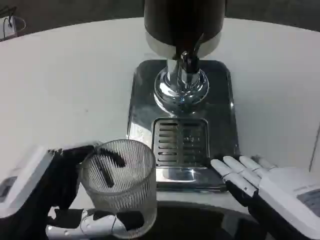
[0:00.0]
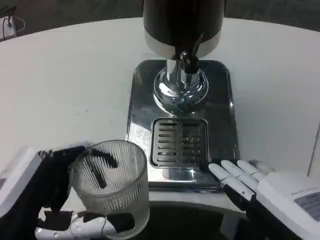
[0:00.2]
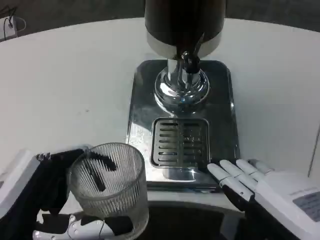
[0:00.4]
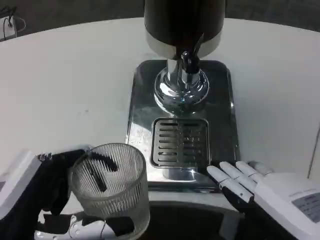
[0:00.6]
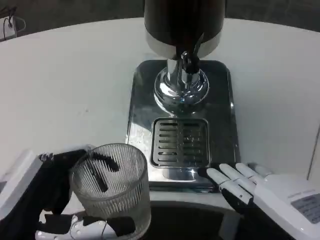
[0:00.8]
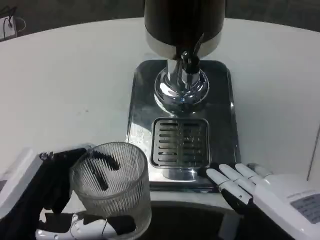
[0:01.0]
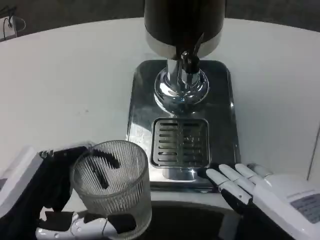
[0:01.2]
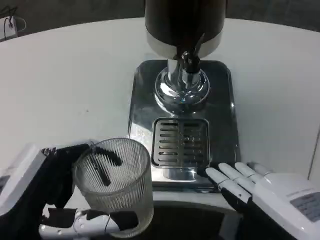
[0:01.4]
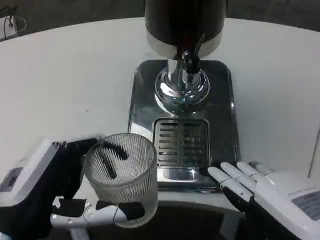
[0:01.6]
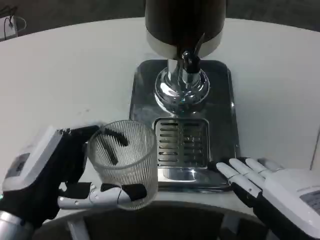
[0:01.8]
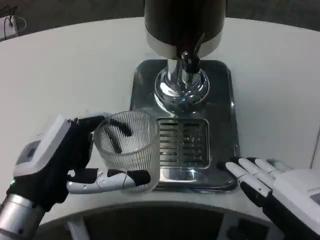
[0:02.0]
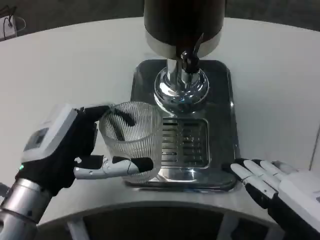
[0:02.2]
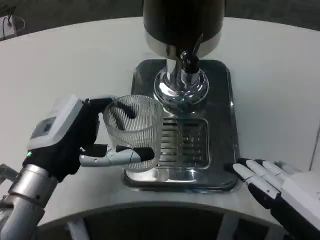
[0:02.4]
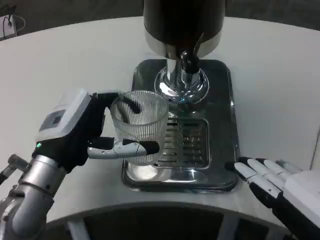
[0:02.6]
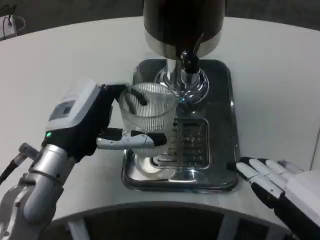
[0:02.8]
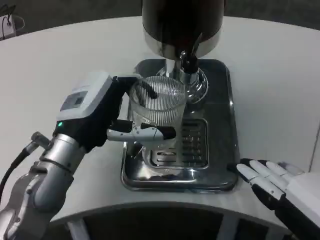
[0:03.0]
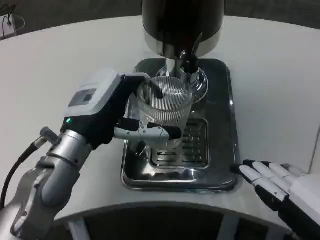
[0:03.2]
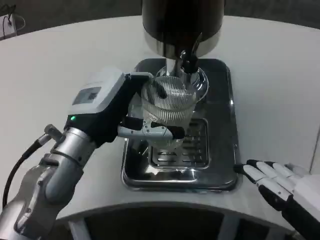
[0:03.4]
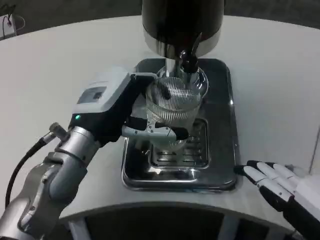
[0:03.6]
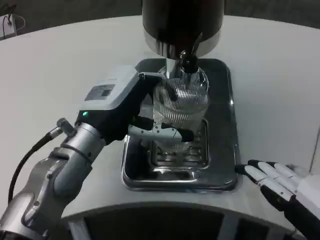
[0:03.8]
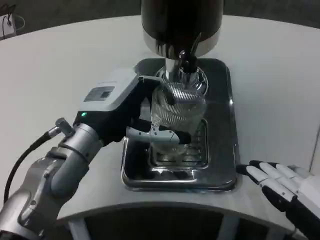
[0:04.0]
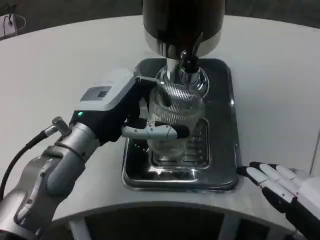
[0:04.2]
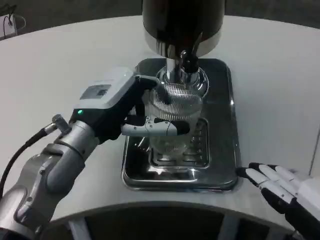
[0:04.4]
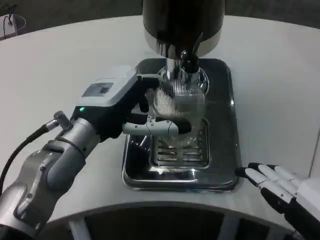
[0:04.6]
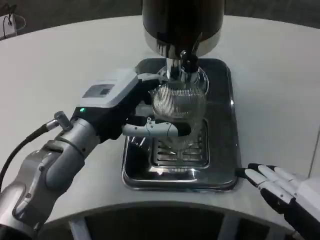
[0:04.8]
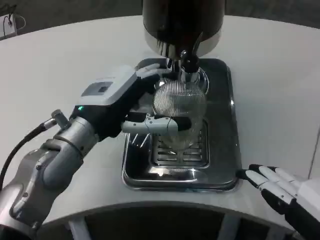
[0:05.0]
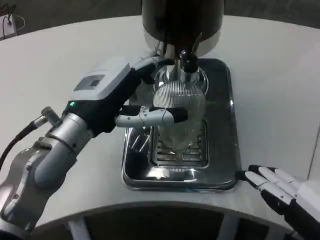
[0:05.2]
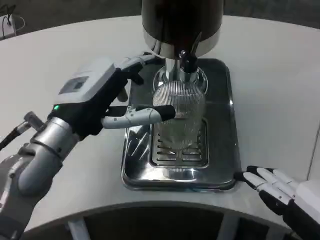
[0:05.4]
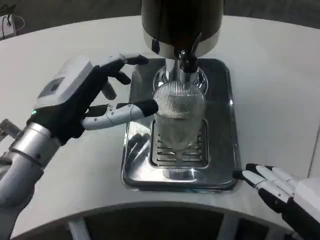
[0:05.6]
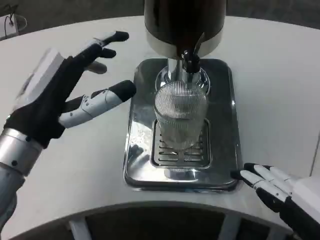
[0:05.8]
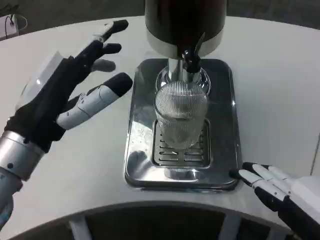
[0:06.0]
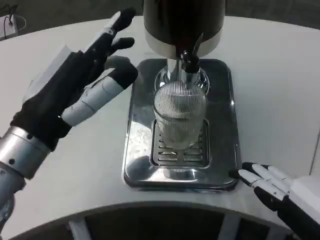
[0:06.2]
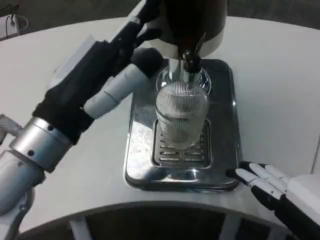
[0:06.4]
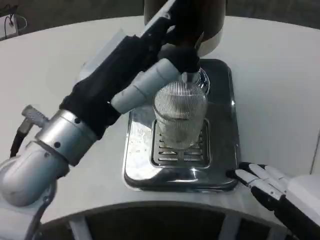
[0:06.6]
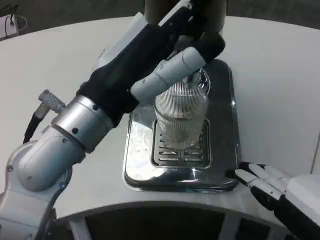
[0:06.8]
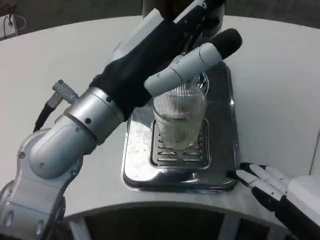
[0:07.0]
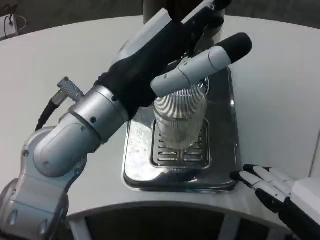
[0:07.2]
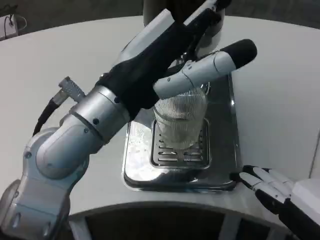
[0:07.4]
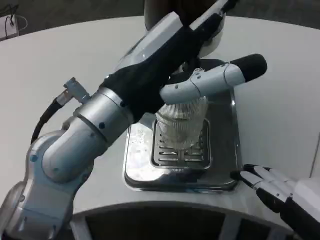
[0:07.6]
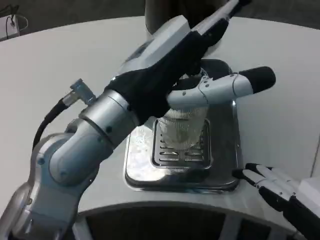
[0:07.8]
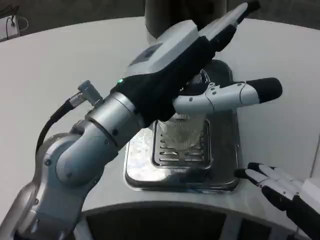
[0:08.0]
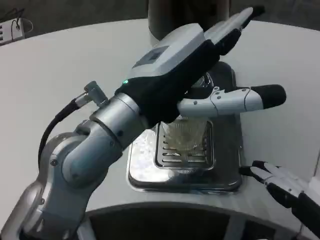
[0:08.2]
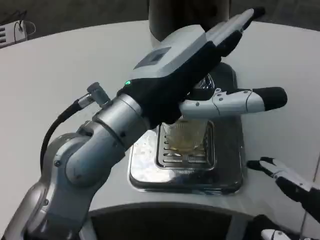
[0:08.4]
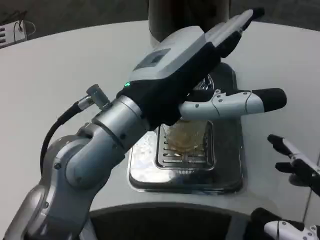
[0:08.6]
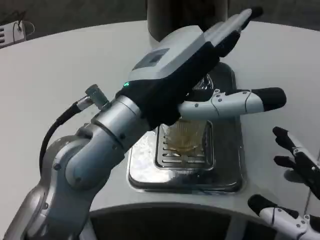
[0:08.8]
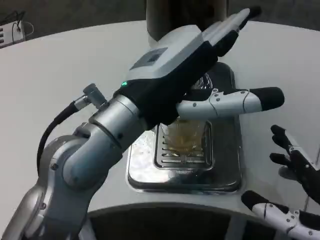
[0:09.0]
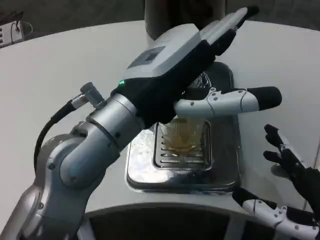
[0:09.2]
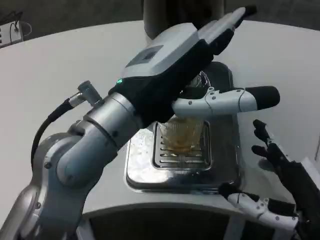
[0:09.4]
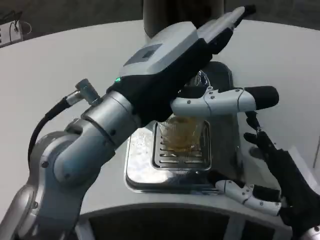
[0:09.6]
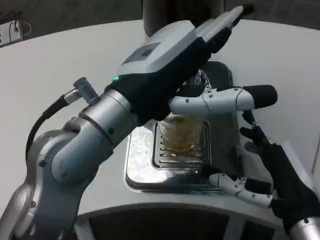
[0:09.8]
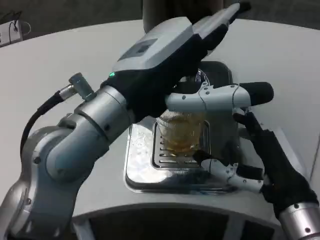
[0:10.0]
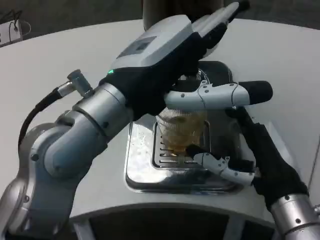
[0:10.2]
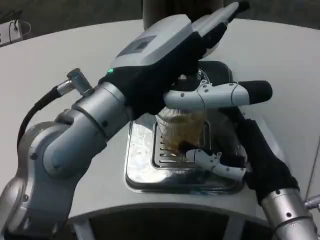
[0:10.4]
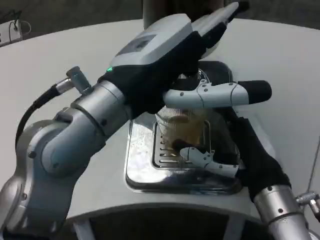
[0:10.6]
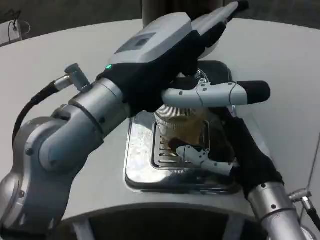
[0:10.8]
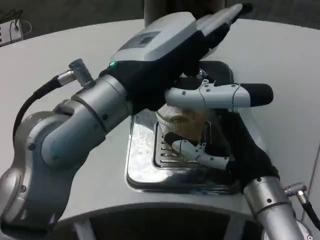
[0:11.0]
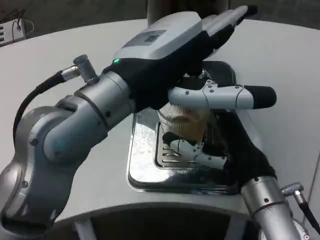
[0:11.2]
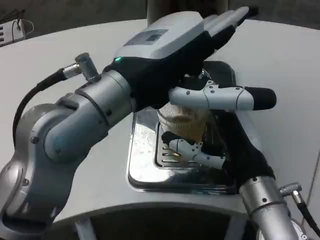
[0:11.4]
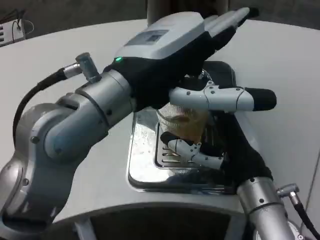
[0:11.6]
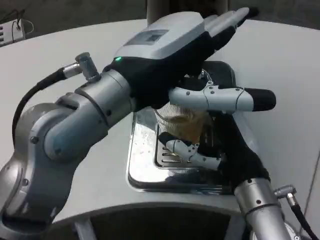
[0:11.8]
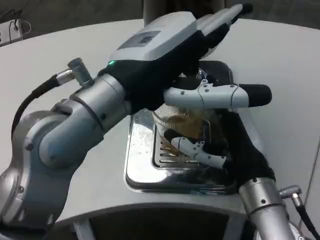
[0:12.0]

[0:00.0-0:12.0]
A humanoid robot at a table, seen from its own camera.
Task of the whole recording: Grasp the cup under the faucet to collect the drink, then remove the cup.
0:00.0 to 0:01.6: The hands stay close to where they were, moving slightly.
0:01.6 to 0:03.0: The left hand shifts approximately 15 cm forward.
0:03.0 to 0:04.4: There are only small adjustments of the hands.
0:04.4 to 0:06.0: The left hand moves backward, some 5 cm.
0:06.0 to 0:07.6: The left hand heads to the right and upward, covering some 10 cm.
0:07.6 to 0:09.0: The right hand ends up some 5 cm from where it was.
0:09.0 to 0:10.4: The right hand moves forward and to the left, some 10 cm.

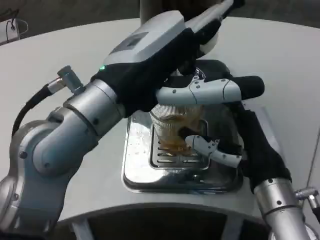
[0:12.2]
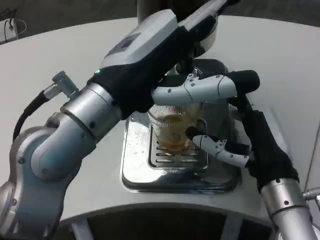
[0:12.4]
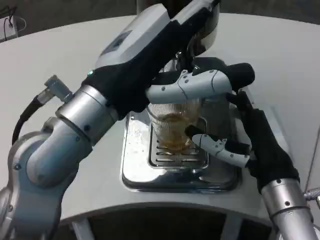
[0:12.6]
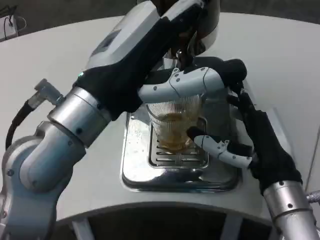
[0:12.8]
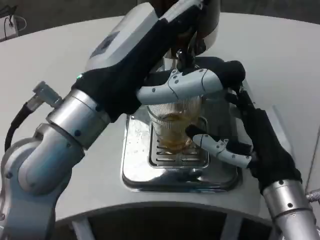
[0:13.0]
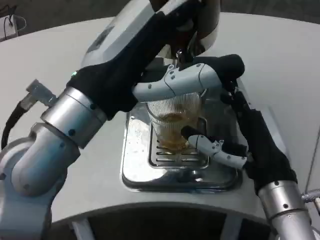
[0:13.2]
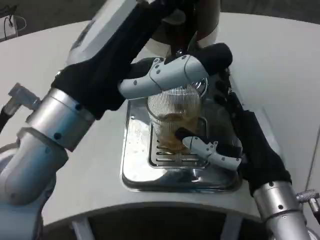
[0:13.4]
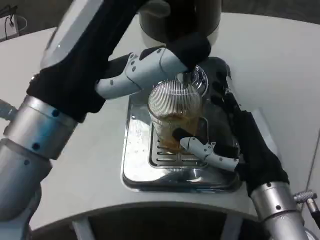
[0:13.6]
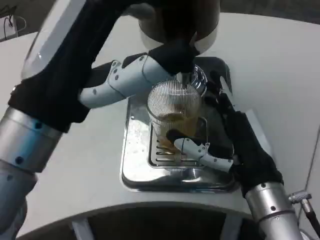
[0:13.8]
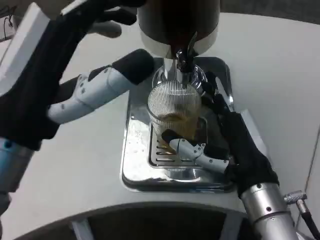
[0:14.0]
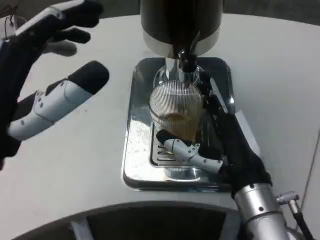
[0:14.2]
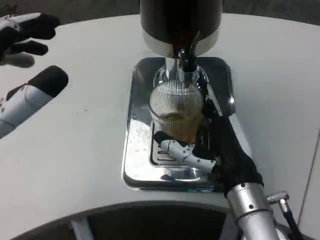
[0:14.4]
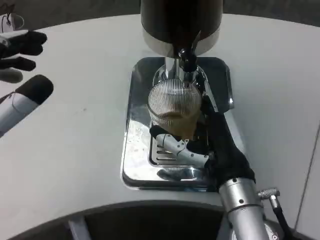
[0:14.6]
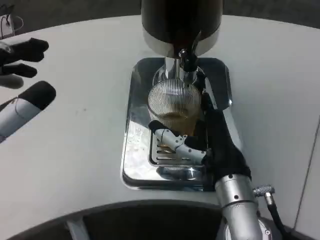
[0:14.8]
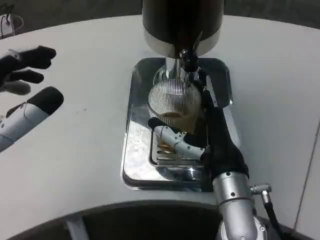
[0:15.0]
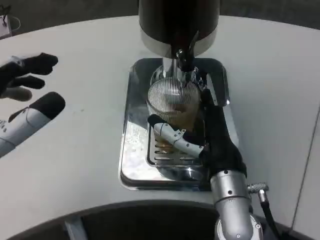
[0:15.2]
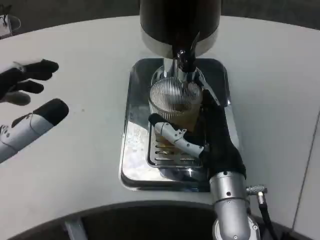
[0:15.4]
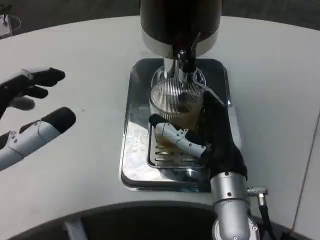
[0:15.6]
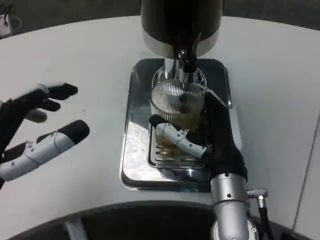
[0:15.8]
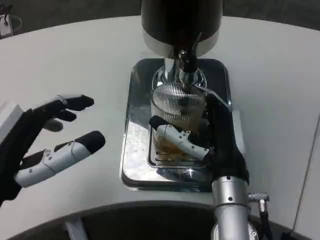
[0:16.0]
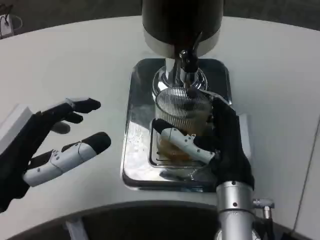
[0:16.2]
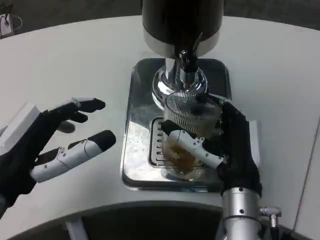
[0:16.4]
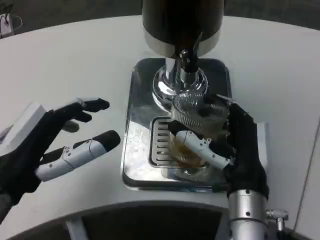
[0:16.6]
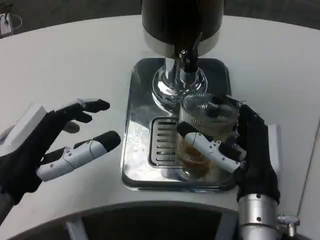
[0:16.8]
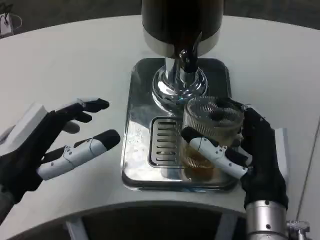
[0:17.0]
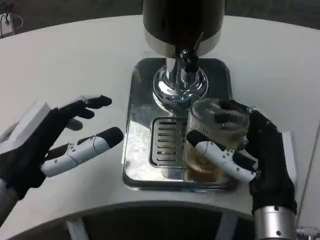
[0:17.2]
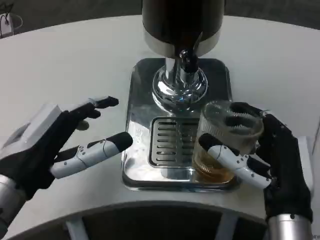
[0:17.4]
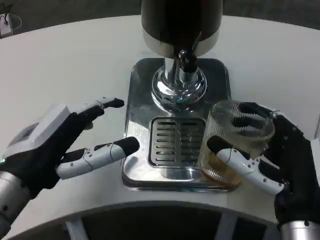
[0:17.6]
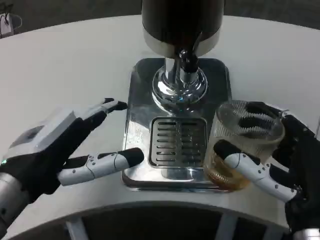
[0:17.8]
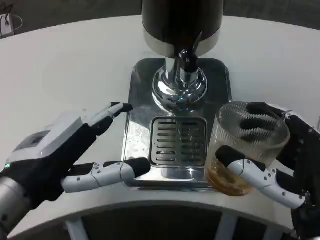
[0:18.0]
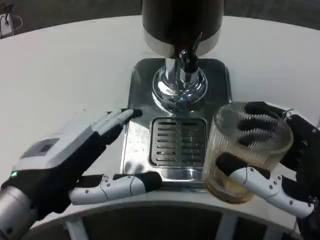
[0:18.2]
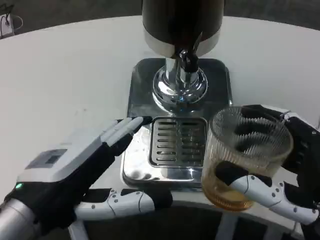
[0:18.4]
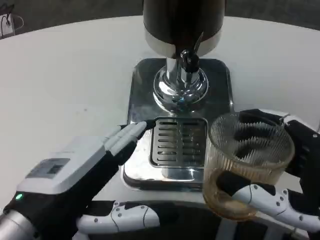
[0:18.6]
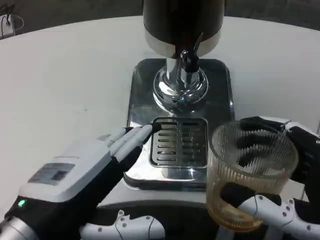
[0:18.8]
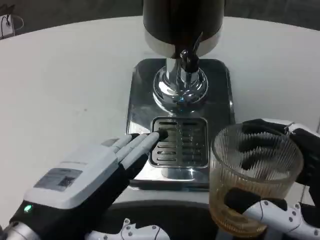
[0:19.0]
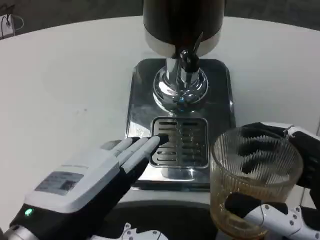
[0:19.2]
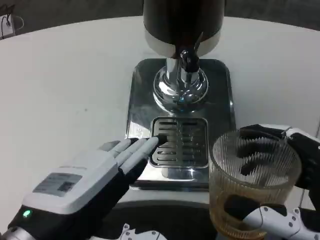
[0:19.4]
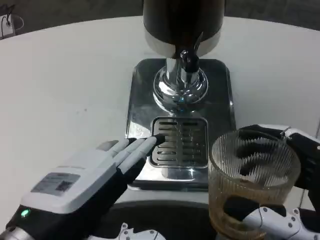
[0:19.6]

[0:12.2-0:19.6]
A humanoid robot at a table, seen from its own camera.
Task of the whole recording: Grasp the cup under the faucet to collect the drink, then remove the cup.
0:13.6 to 0:15.2: The right hand shifts approximately 5 cm to the left. Meanwhile the left hand heads to the left and downward, covering about 10 cm.
0:15.2 to 0:16.6: The left hand moves about 5 cm.
0:16.6 to 0:18.2: The right hand heads backward and to the right, covering approximately 15 cm.

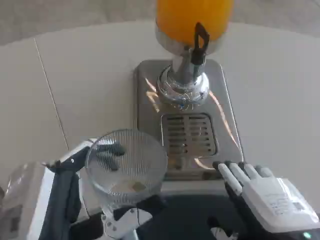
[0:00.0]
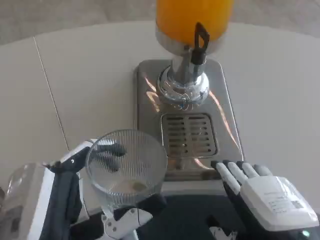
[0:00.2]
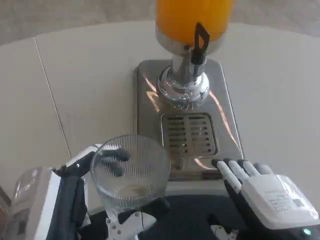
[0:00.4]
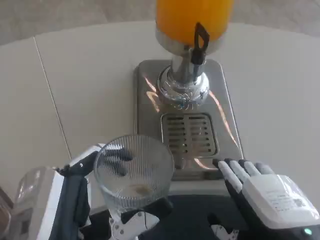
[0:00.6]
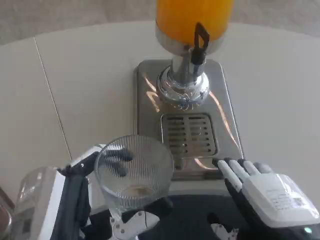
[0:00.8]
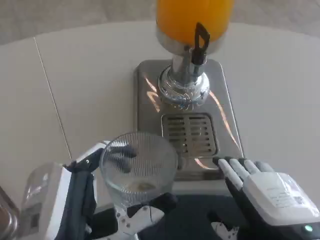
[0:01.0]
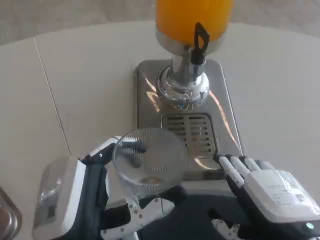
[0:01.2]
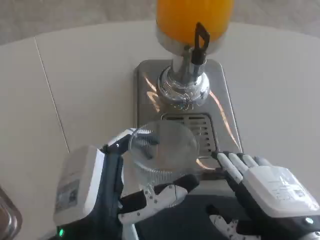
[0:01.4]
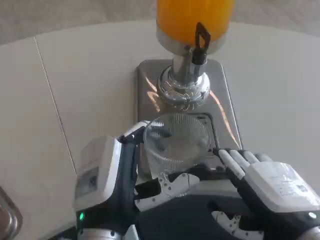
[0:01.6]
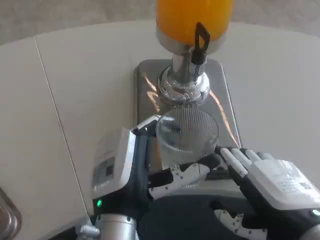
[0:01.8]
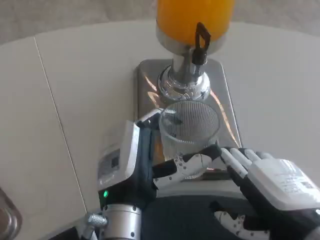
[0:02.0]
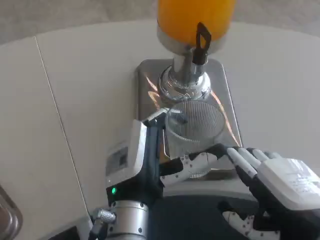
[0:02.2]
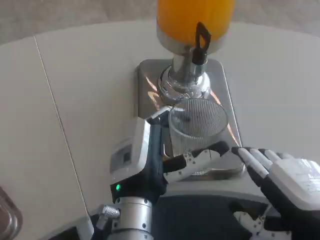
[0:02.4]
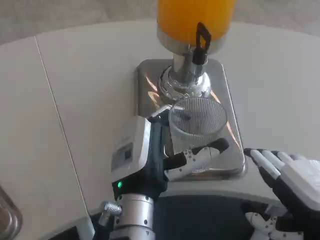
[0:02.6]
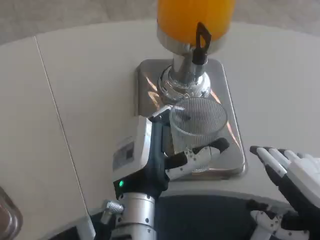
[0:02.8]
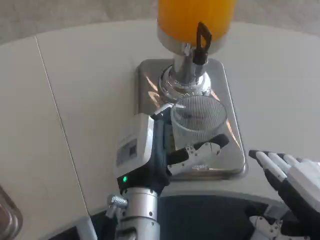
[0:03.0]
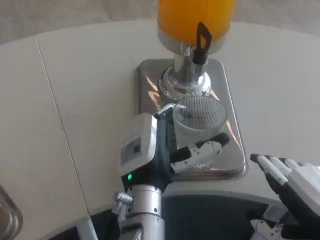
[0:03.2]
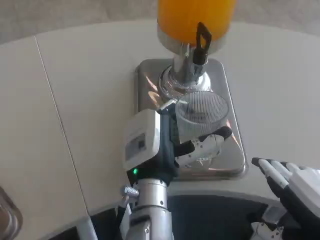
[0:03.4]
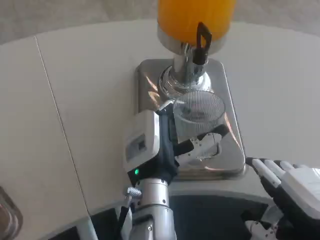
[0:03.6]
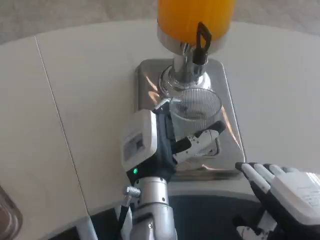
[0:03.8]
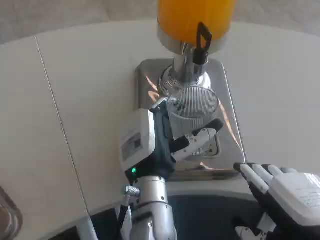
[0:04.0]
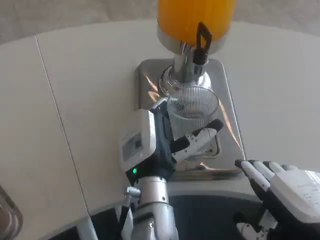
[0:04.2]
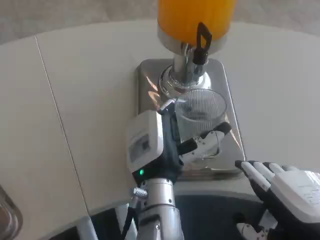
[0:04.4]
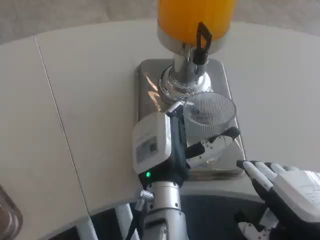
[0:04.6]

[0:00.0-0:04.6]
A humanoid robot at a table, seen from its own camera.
Task of the whole recording: Grasp the cup under the faucet to collect the drink, then remove the cup.
0:00.0 to 0:01.6: The left hand travels forward and to the right by approximately 10 cm.
0:01.6 to 0:03.0: The right hand changes place by about 5 cm; the left hand goes approximately 5 cm forward.
0:03.0 to 0:04.6: The hands move only a little.
